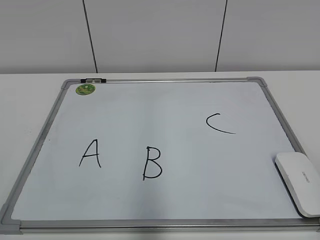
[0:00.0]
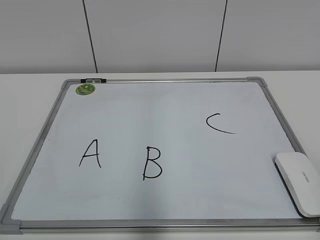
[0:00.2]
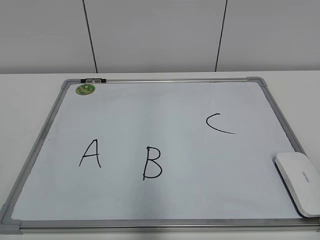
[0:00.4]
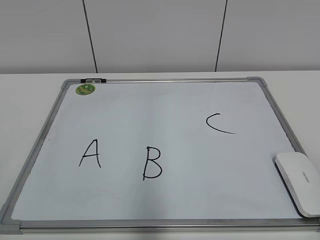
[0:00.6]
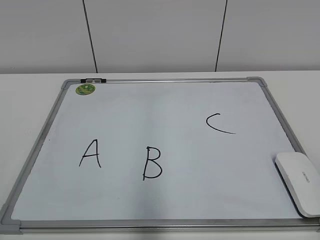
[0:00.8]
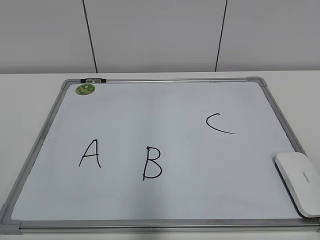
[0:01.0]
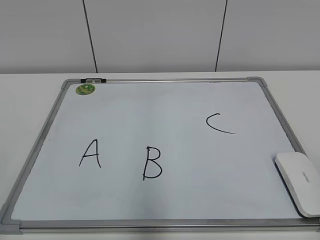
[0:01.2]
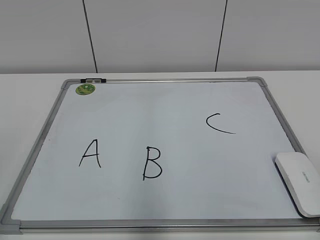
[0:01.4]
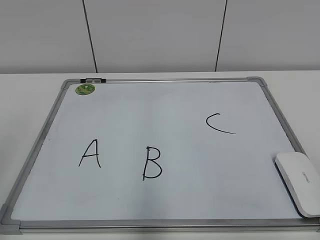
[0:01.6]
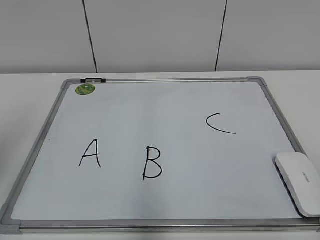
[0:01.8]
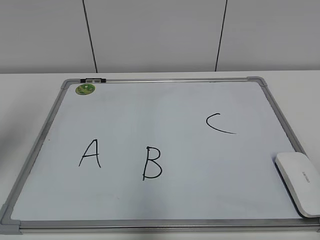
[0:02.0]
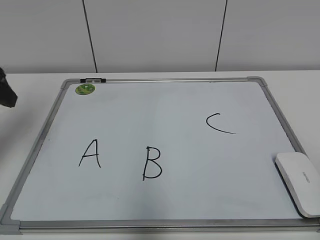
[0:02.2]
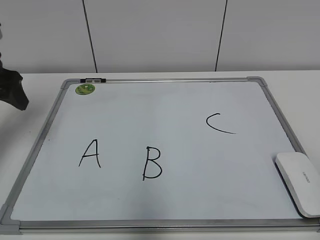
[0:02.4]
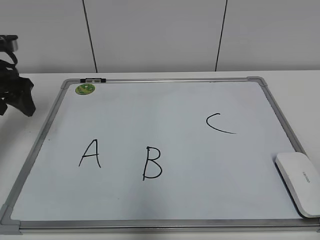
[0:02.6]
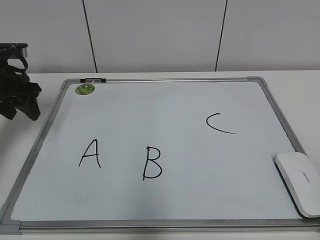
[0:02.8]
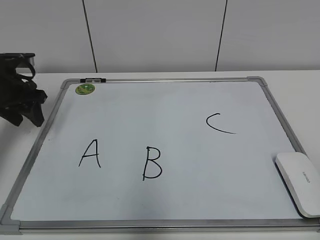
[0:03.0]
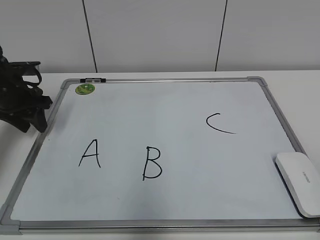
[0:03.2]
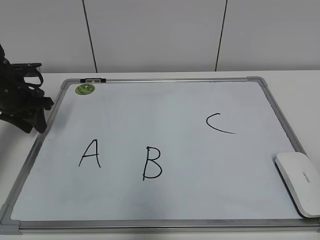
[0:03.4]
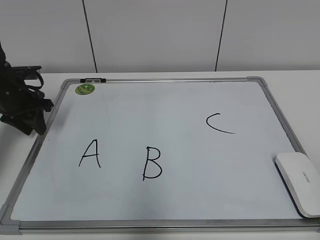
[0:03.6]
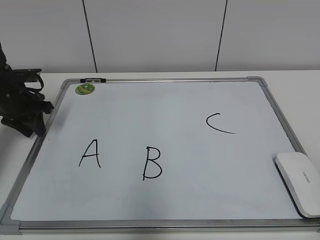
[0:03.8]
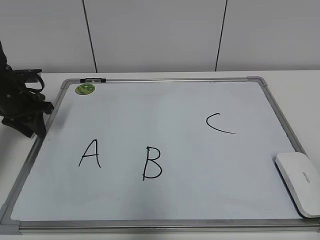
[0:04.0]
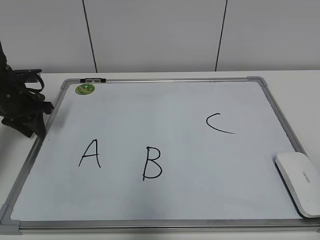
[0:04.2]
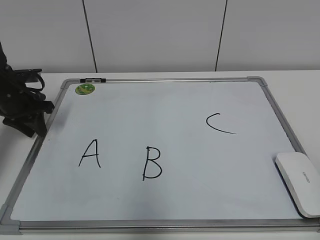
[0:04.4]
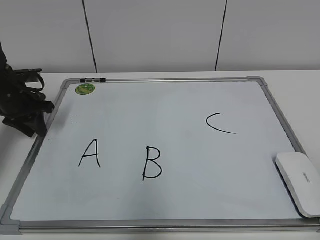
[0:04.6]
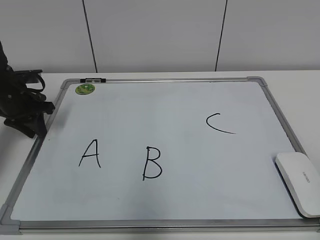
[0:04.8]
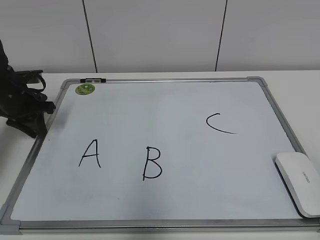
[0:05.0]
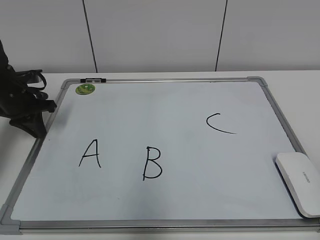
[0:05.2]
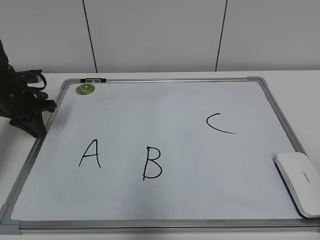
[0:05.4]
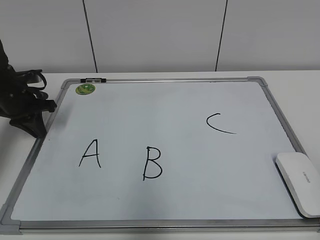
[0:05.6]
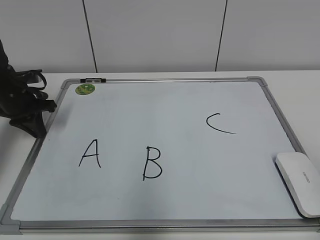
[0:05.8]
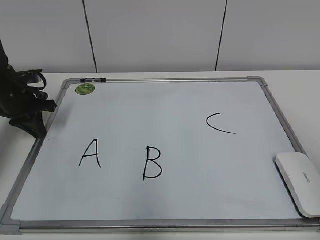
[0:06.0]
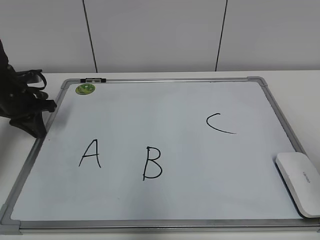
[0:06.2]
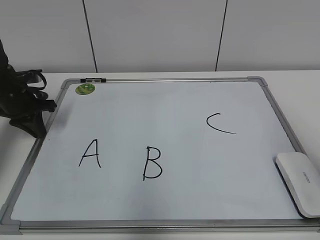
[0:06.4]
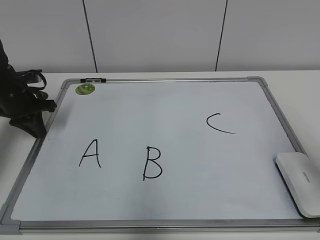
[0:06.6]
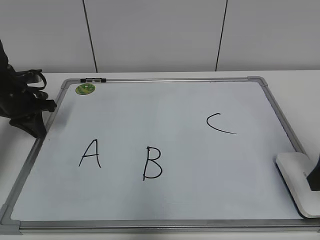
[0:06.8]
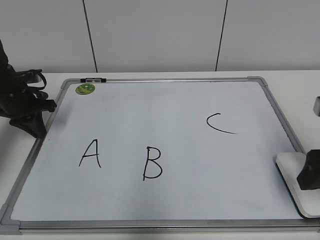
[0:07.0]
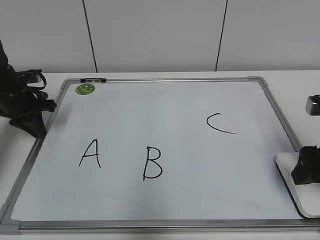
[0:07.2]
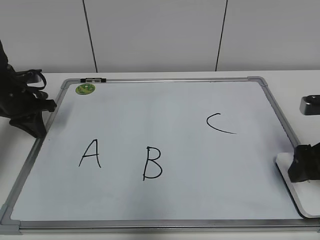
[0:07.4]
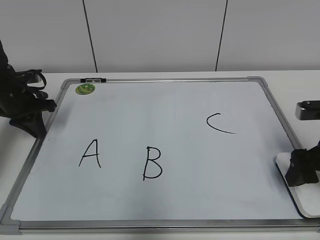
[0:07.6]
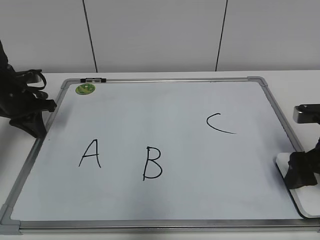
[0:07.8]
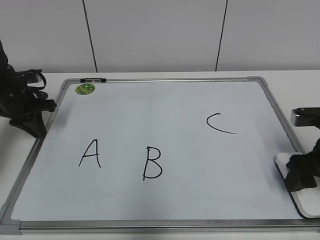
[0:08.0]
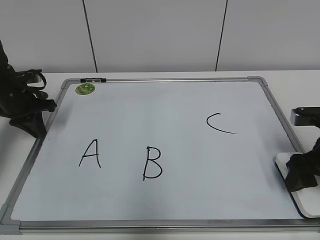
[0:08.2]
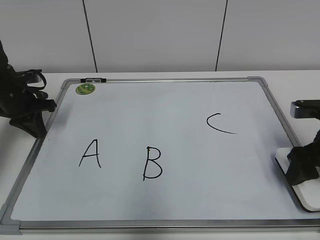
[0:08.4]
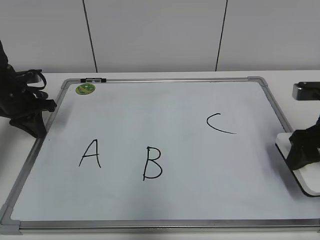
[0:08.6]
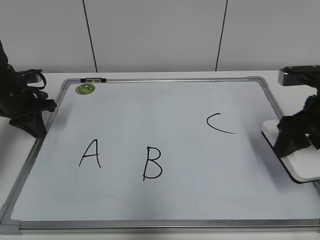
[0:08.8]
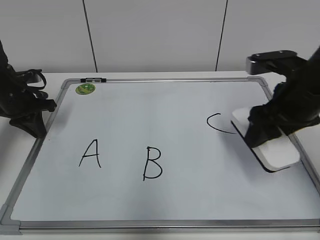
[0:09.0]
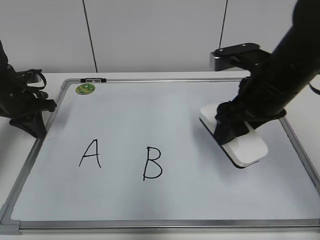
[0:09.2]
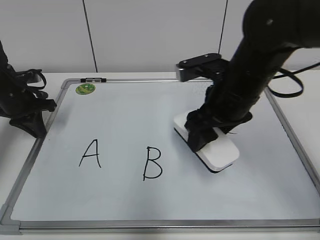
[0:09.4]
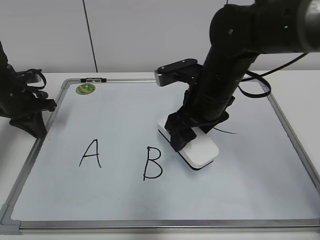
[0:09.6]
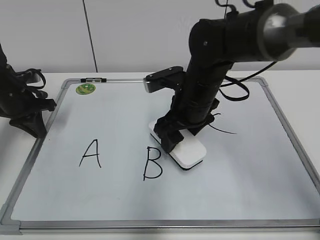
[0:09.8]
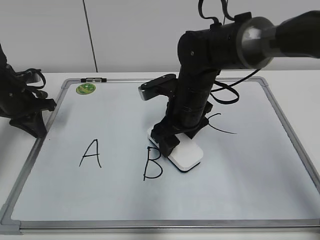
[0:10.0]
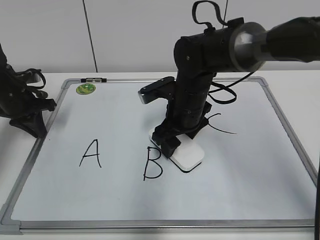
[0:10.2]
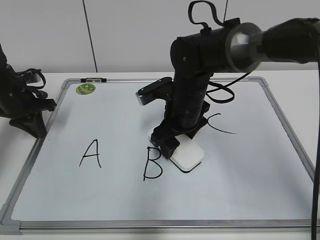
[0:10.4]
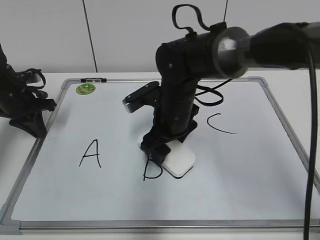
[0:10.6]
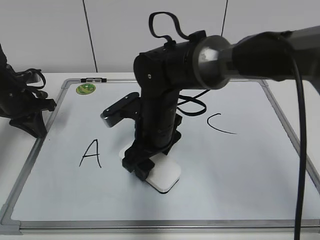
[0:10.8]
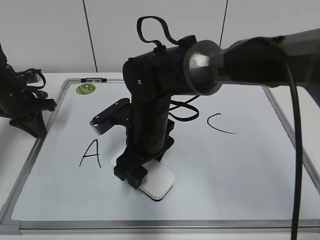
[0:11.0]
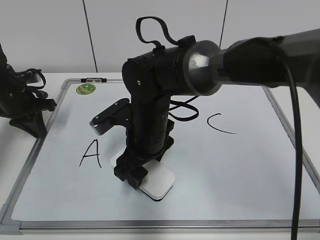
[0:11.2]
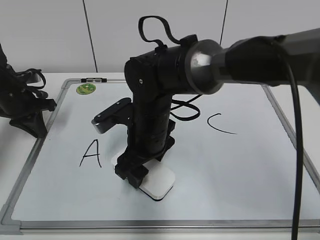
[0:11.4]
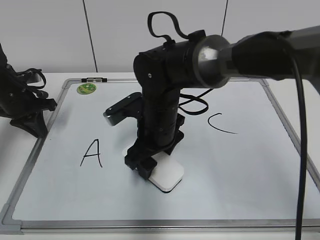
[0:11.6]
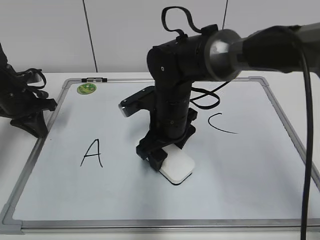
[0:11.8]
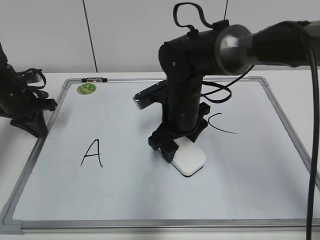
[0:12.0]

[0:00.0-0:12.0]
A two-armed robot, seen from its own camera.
Task of the whole recording: pick up the eraser on the blackboard and erase the letter "B".
Step, 0:00.0 to 0:05.0: Hold the drawing board steady with your left hand.
Step, 0:05.4 to 0:08.0: Grab the eraser with your right hand.
0:01.6 to 0:03.0: The left gripper goes some 35 cm forward and downward.
0:03.0 to 0:04.4: The left gripper moves about 5 cm.
0:04.4 to 0:06.0: The left gripper closes up.
0:06.0 to 0:07.6: The right gripper heads forward and downward, covering about 25 cm, and opens up.
0:07.6 to 0:09.0: The right gripper moves to the left and upward, some 10 cm, and closes up.
0:09.0 to 0:10.4: The right gripper moves to the left, downward and forward, approximately 20 cm.

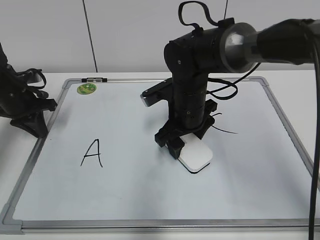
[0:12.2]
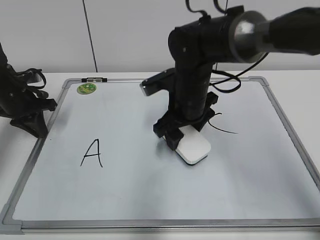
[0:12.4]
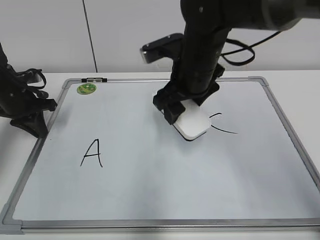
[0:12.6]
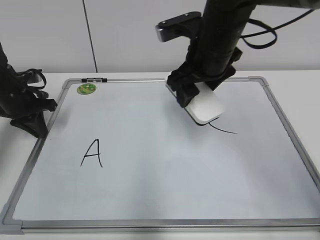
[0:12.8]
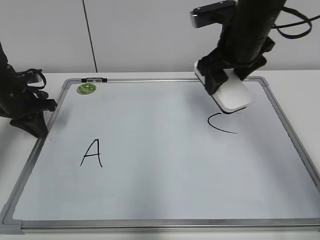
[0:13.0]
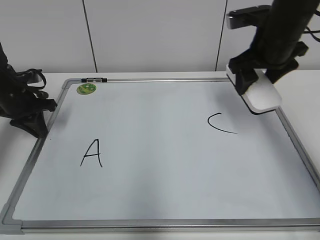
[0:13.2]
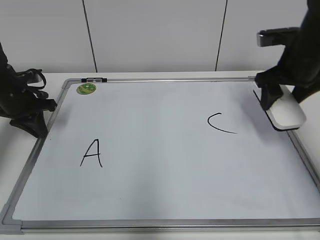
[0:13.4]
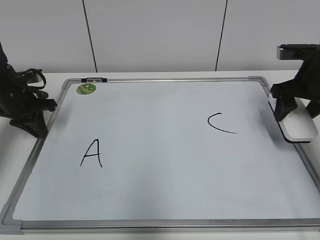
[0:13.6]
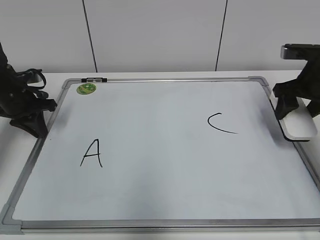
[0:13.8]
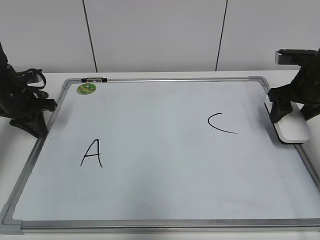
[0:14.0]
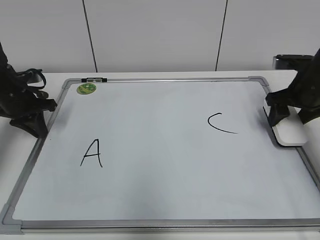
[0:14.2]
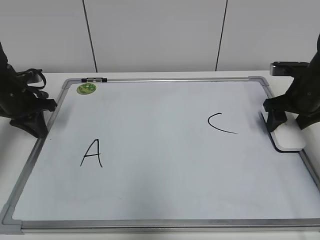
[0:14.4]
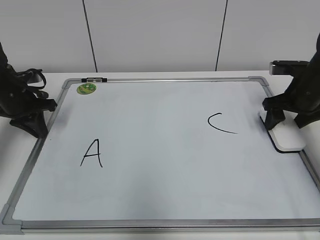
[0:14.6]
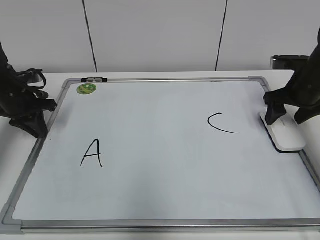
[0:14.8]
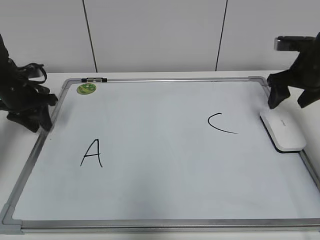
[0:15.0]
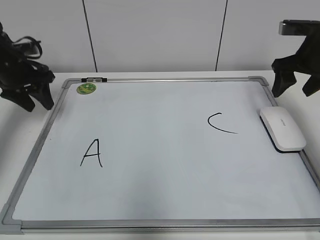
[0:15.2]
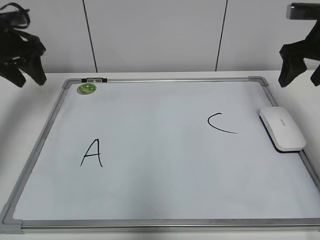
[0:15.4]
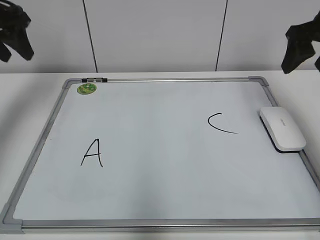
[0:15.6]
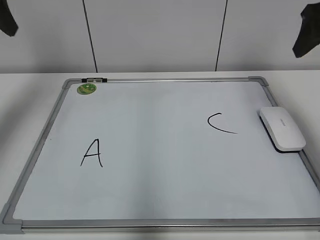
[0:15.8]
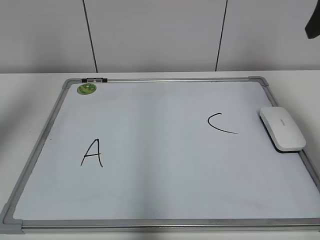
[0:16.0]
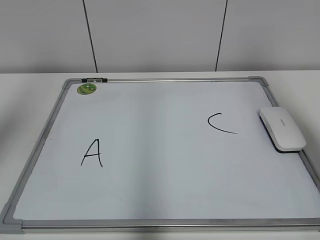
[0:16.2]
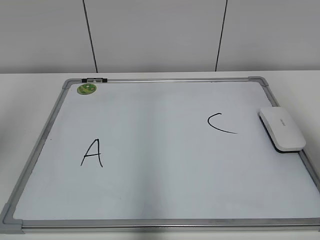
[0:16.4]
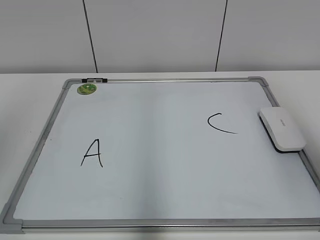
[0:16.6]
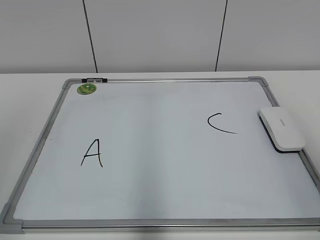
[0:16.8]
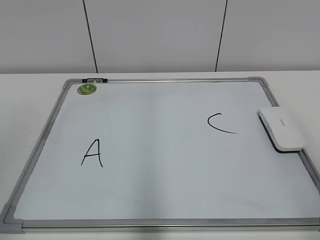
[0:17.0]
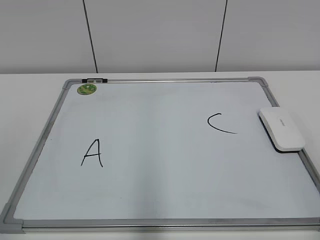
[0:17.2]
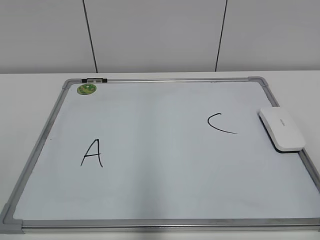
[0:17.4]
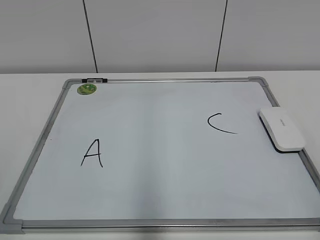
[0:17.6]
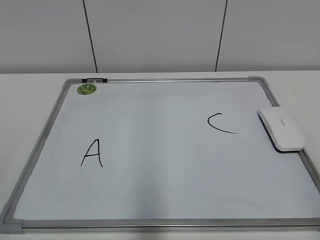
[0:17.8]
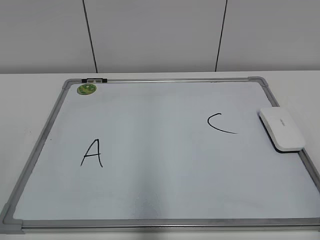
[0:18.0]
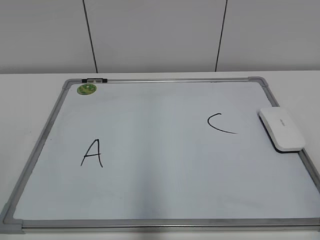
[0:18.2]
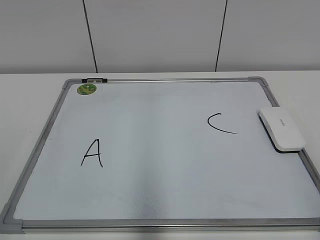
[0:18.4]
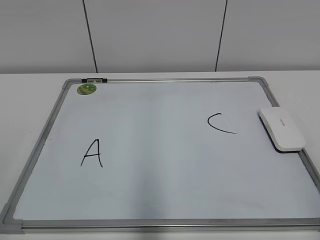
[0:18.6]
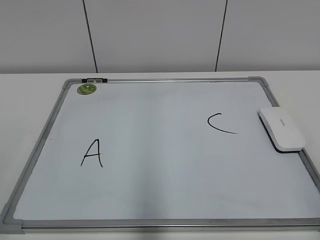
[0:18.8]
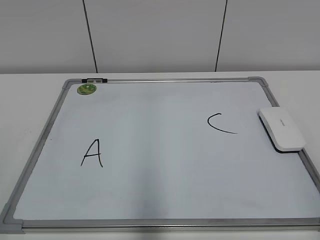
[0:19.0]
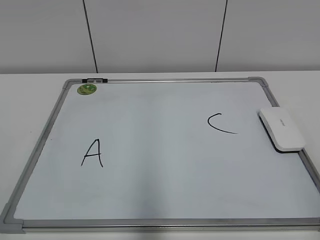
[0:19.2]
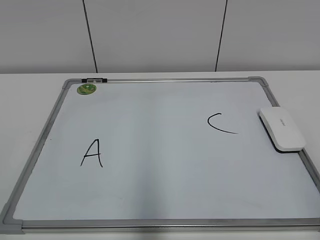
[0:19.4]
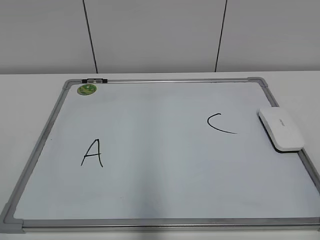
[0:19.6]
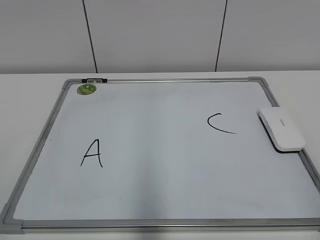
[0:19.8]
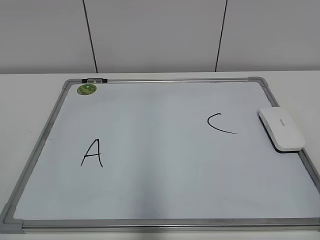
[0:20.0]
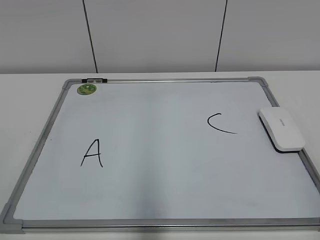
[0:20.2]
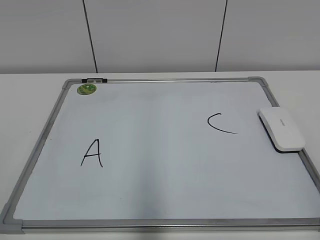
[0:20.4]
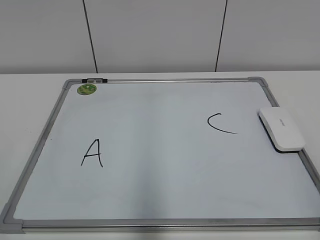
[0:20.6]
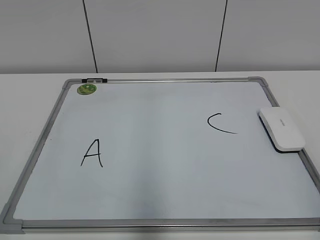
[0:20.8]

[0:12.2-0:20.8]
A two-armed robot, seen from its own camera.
Task of the whole recording: pick up the eraser on the blackboard and erase the letter "B".
0:12.2 to 0:13.6: The right gripper goes about 25 cm to the right.
0:13.6 to 0:15.0: The grippers make only small movements.
0:15.0 to 0:16.6: Both grippers move backward and upward, roughly 35 cm.
0:19.4 to 0:20.8: Both grippers stay put.
